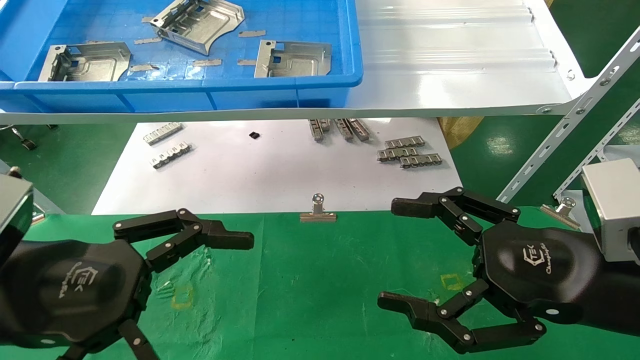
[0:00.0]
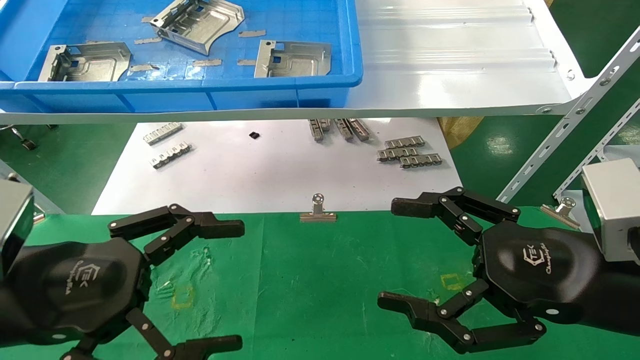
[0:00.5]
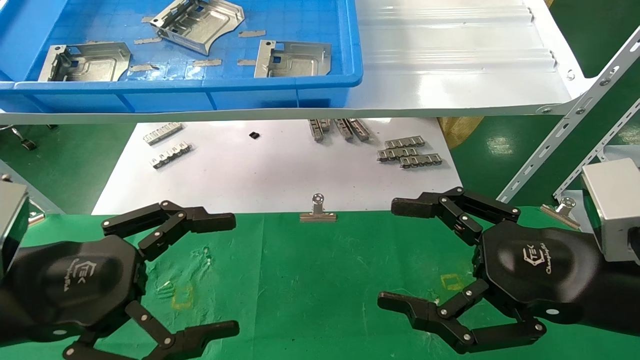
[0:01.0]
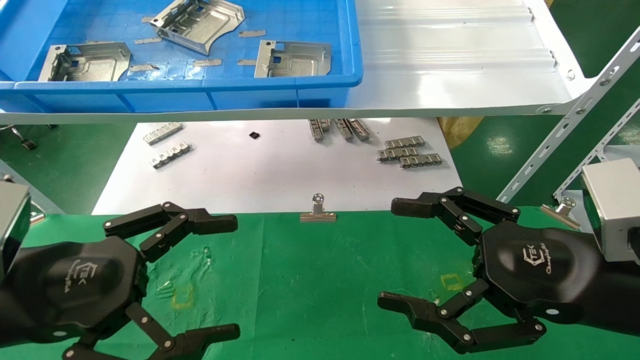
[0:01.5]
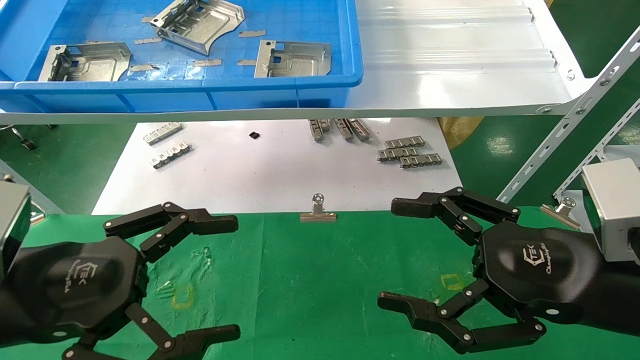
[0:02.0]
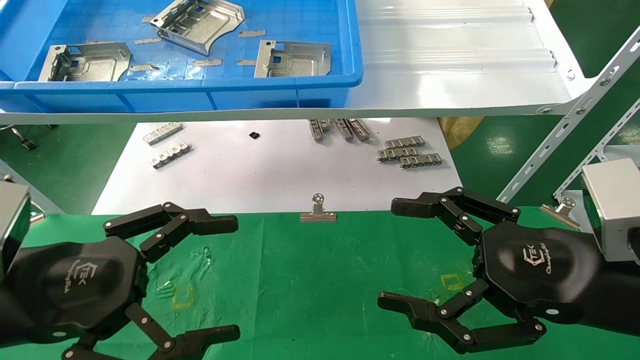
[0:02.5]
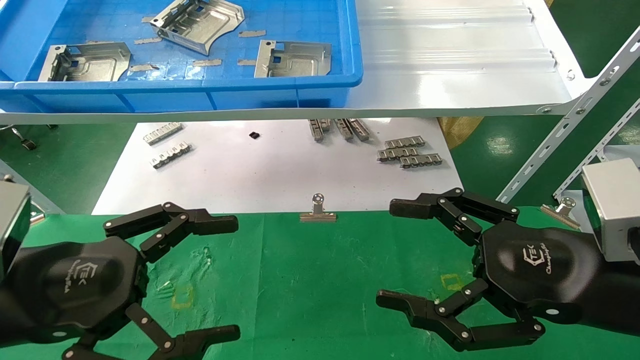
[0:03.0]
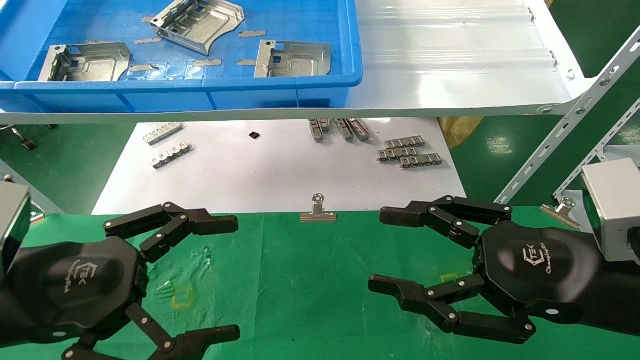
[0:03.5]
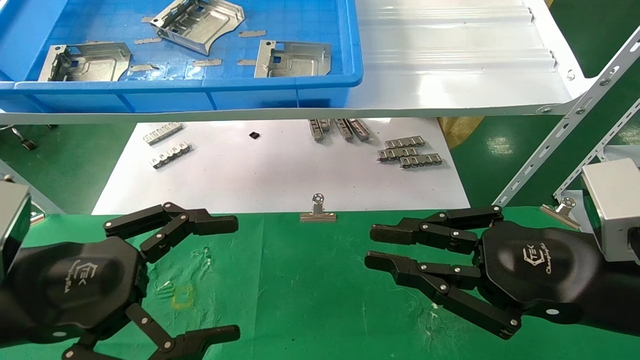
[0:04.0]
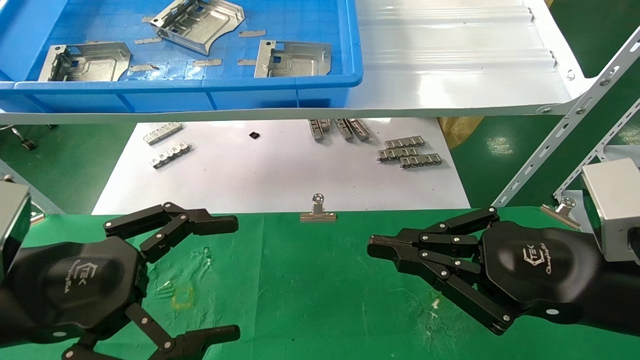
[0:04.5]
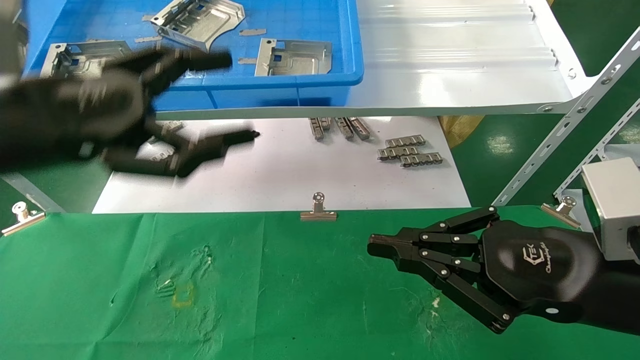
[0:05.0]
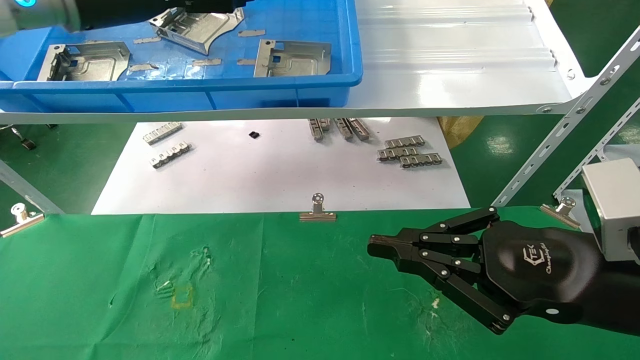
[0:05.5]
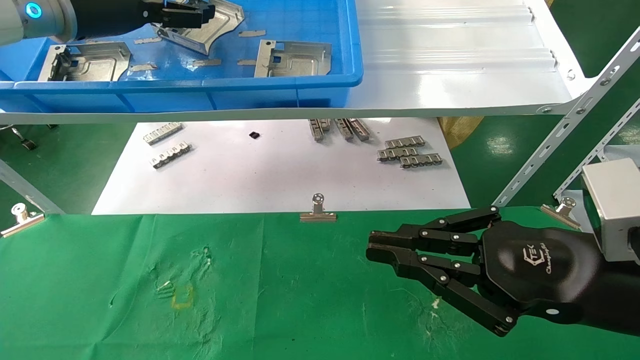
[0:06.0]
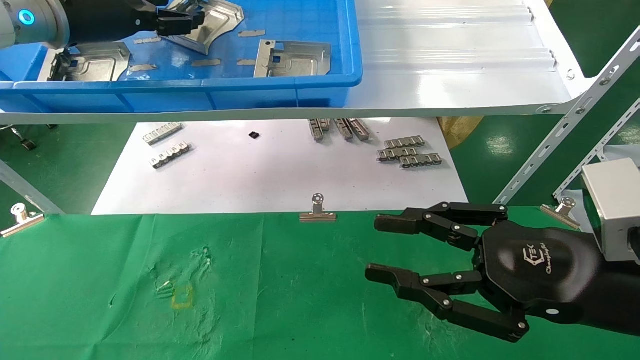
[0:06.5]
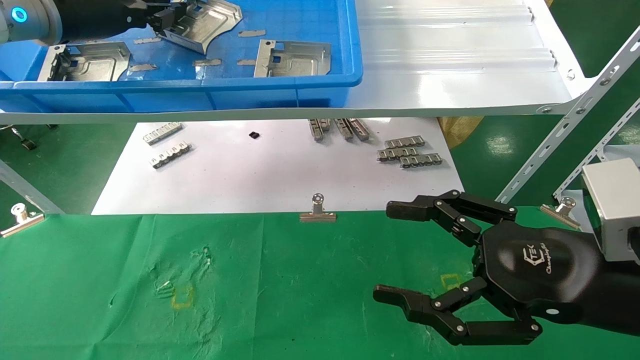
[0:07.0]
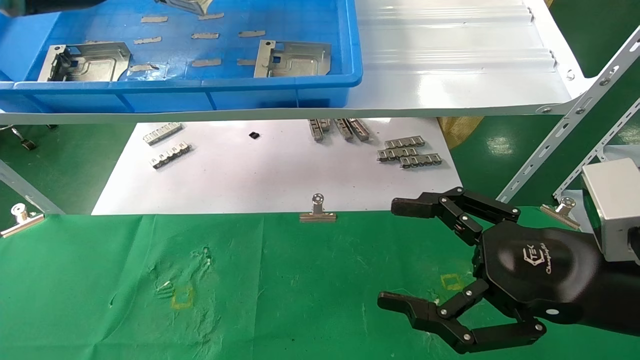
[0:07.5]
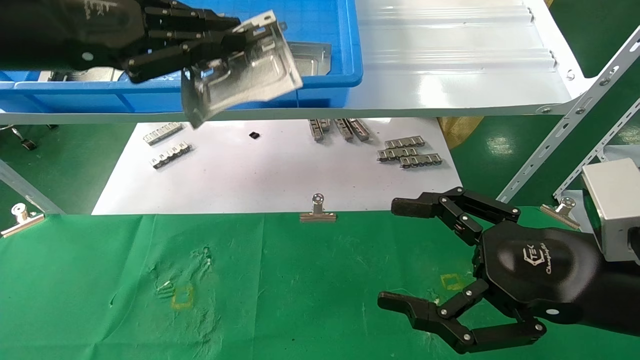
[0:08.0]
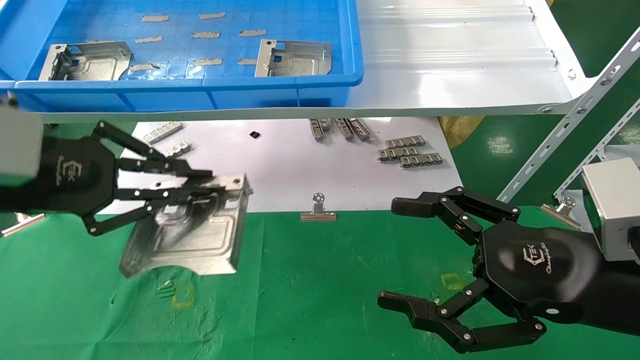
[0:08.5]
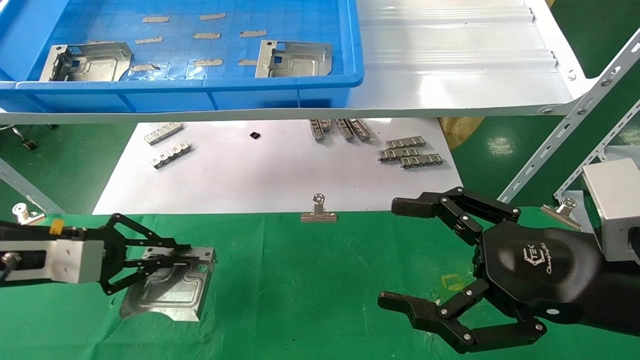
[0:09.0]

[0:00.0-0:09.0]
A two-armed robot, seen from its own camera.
Task of the whole recording: use the mechanical arm to pick up the parts and place them on the table.
Step, 0:05.0 to 0:07.0: Pick up the hard drive bracket from the feeding area.
0:00.0 to 0:02.0: The grippers stay close to where they were, moving slightly.
0:02.0 to 0:04.5: The right gripper closes up.
0:04.5 to 0:07.0: The left gripper moves forward and upward, approximately 30 cm, and closes; the right gripper opens up.
0:07.0 to 0:09.0: The left gripper goes some 25 cm downward.

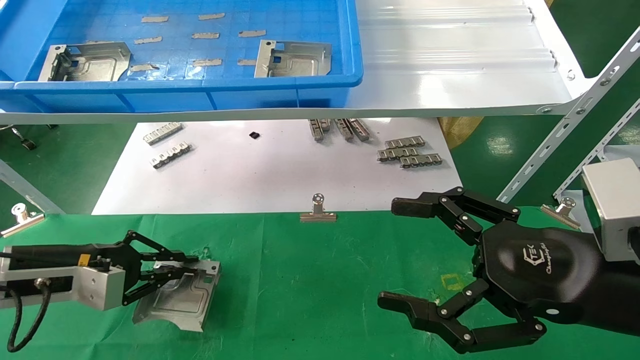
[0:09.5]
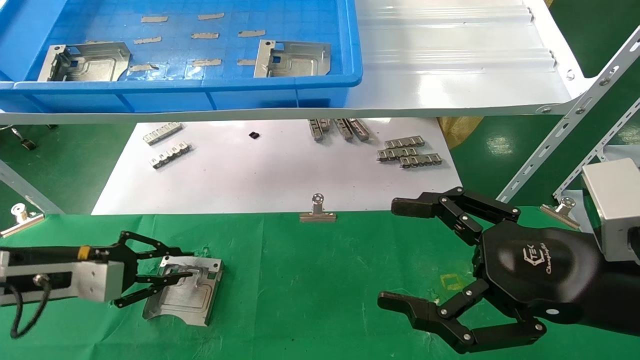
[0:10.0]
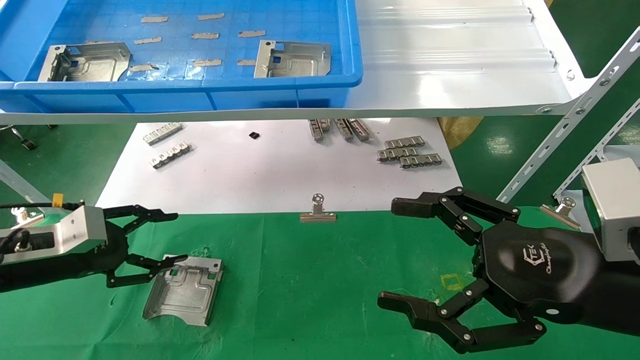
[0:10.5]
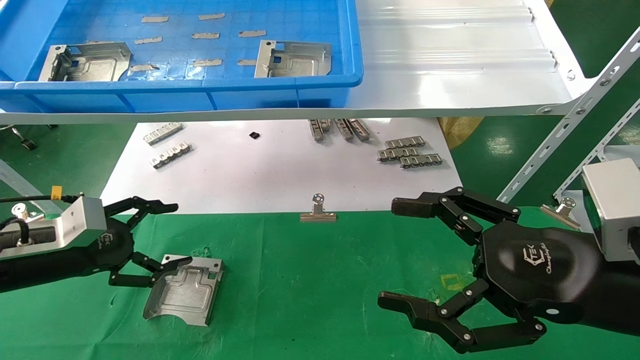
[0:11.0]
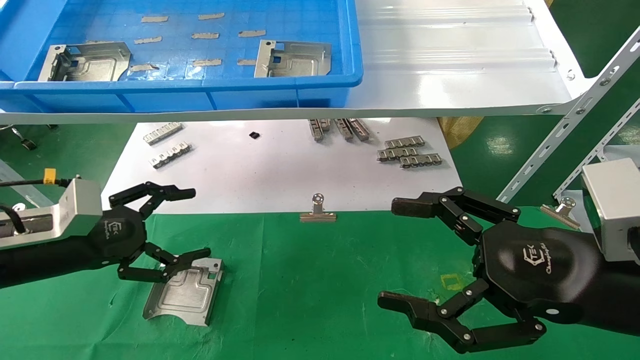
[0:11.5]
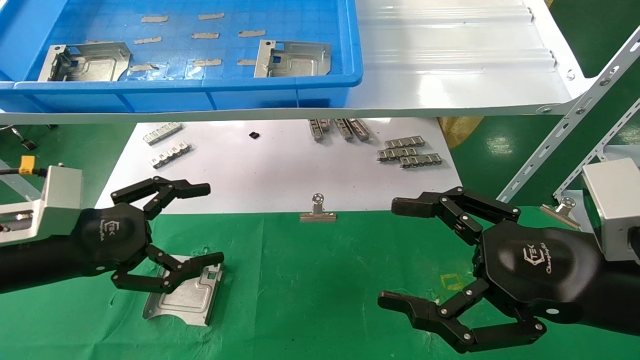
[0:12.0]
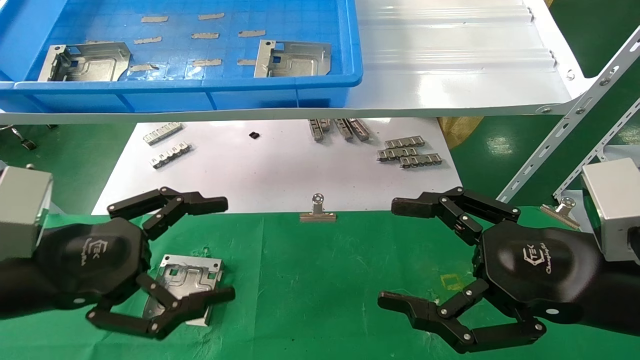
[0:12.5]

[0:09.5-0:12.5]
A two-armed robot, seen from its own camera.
Task of the whole recording: use the mechanical arm to pick up the parts and place them on the table.
0:09.5 to 0:11.0: The left gripper opens its fingers.
0:11.0 to 0:12.5: The left gripper moves backward, to the right and upward, roughly 15 cm.

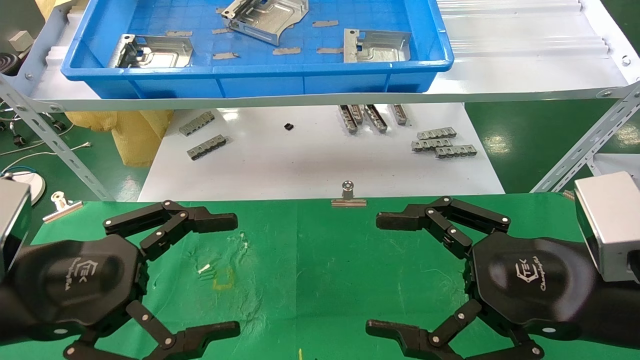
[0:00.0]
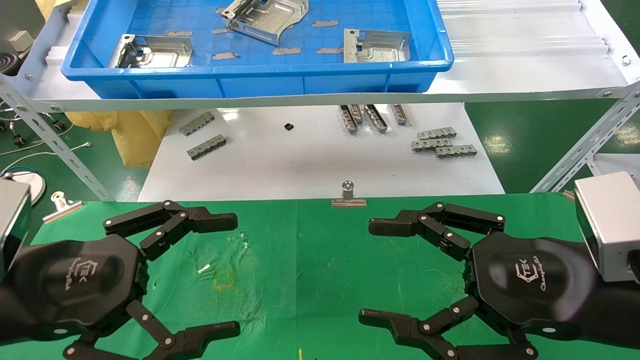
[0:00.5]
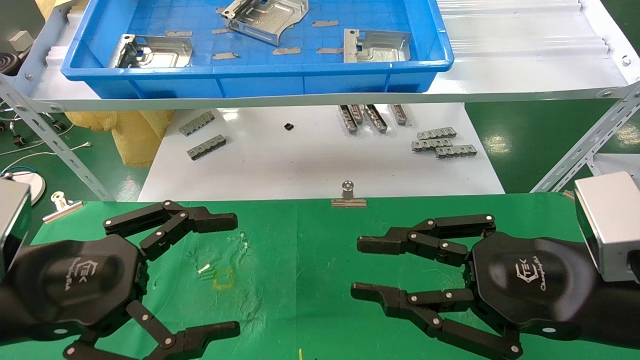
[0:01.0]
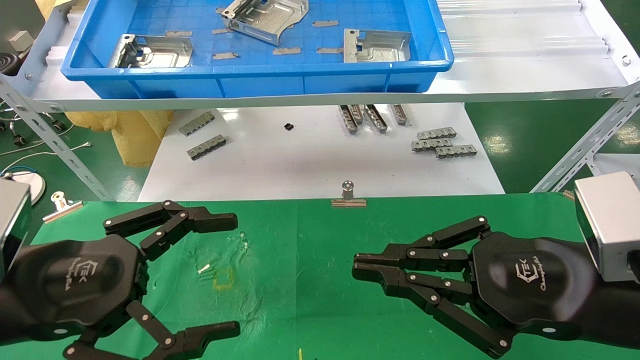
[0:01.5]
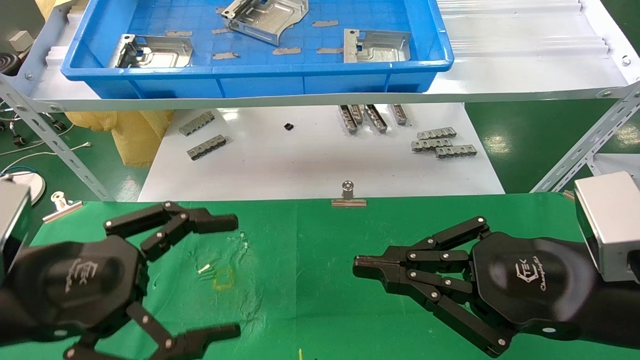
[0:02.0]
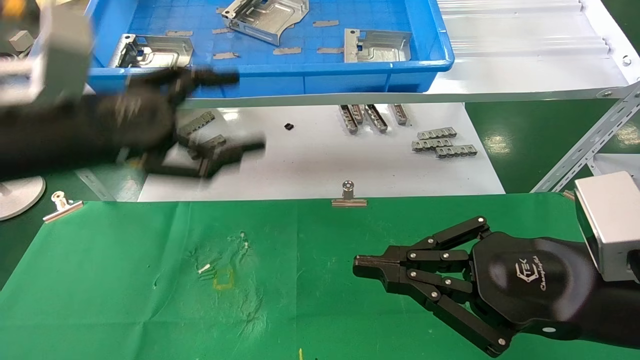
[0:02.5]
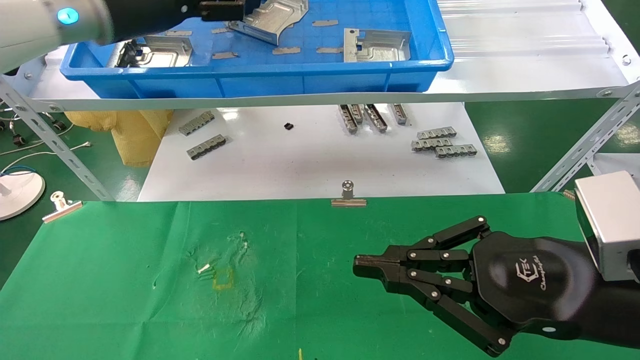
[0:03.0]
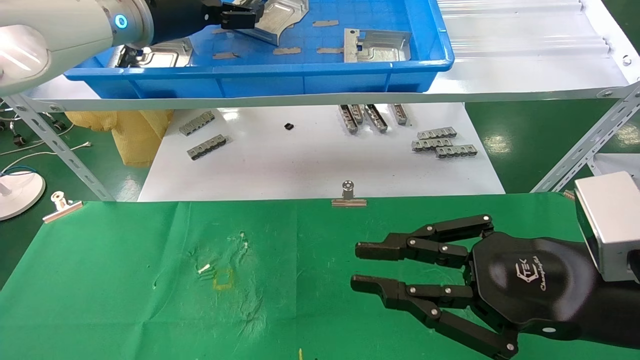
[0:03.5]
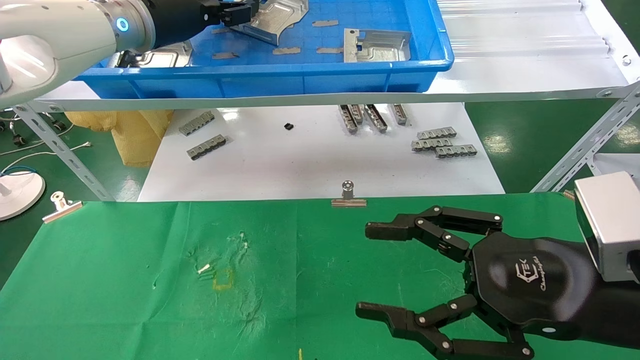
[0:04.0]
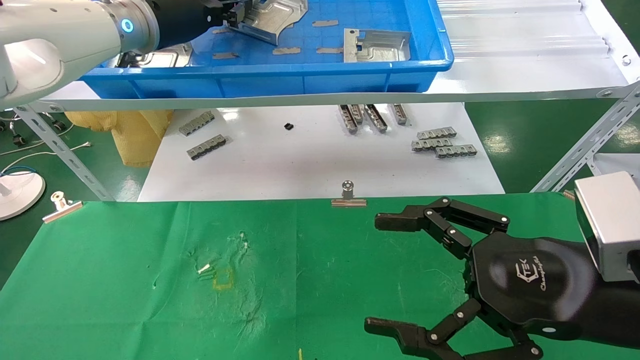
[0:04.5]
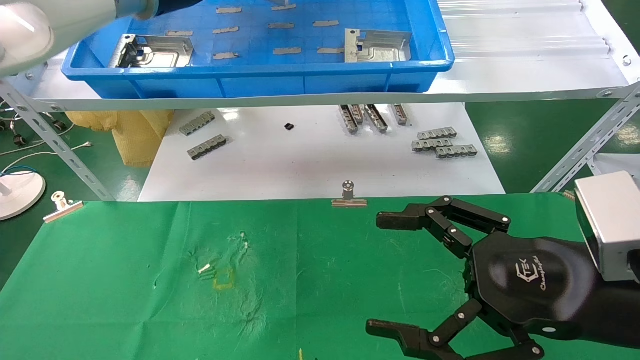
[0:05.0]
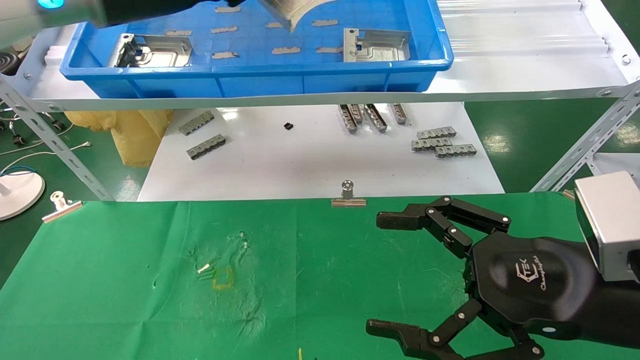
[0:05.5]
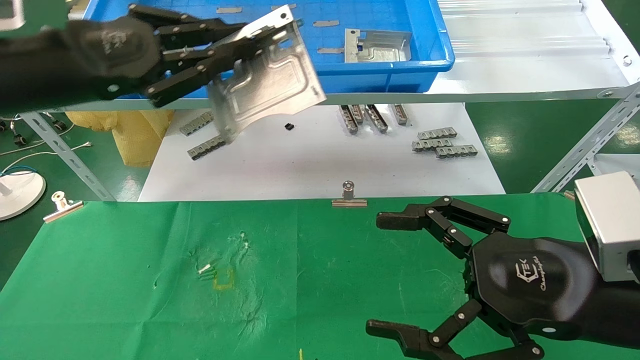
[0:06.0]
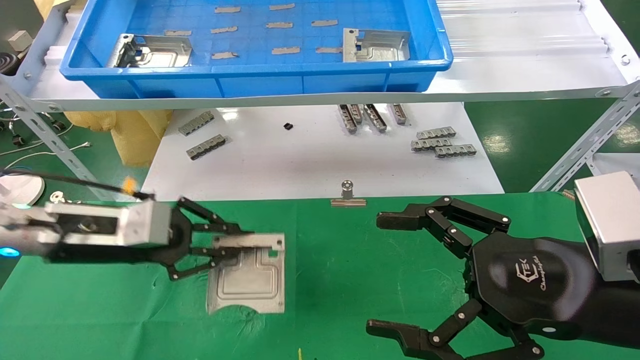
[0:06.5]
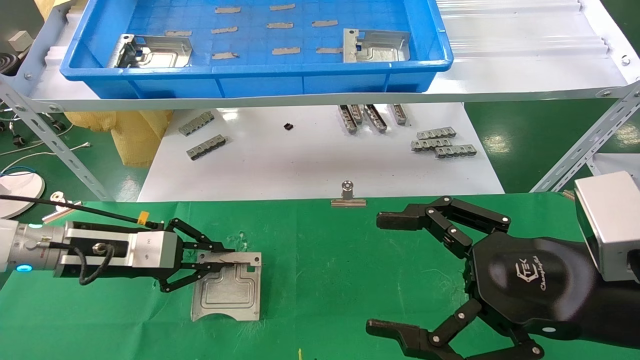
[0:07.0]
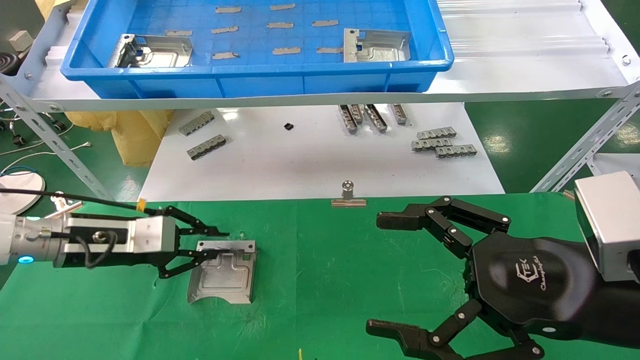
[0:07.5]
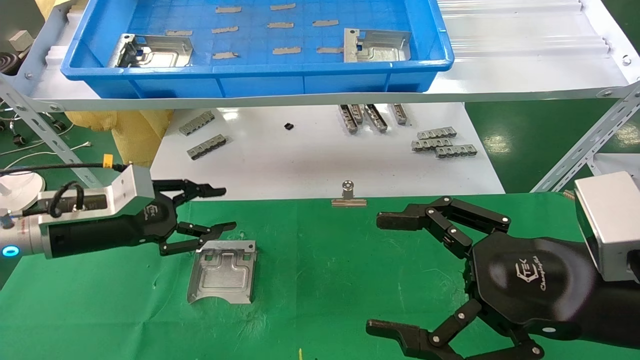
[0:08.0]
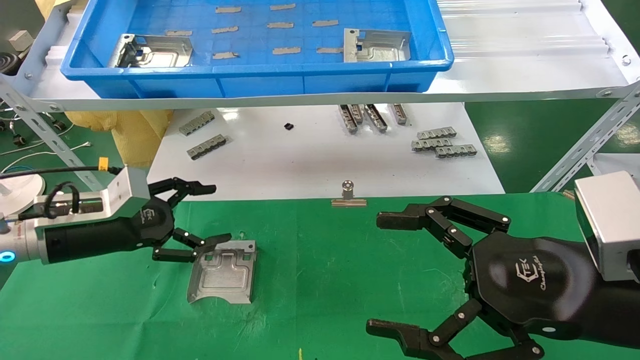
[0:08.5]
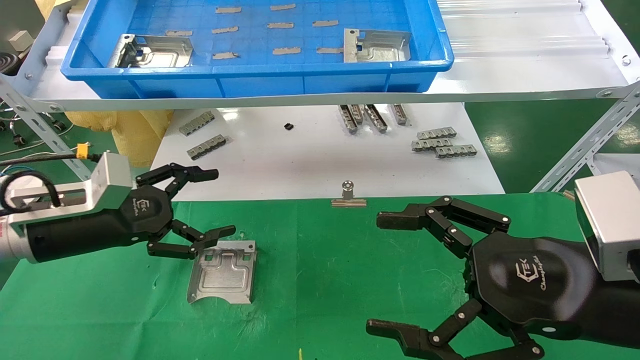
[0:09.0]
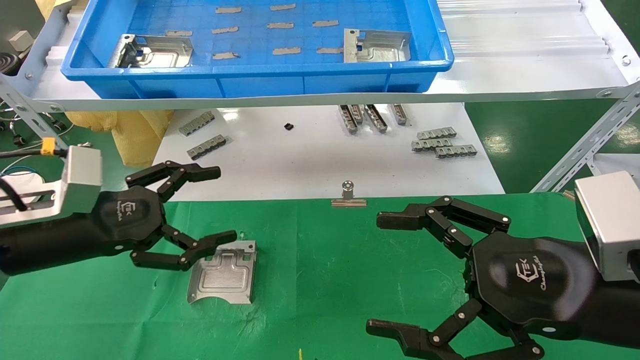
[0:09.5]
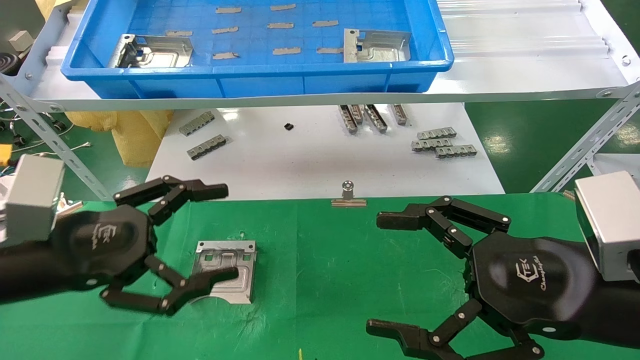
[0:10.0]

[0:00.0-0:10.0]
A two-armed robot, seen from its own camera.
Task of the whole recording: use the mechanical arm to pick up the parts and place them on the table.
Step, 0:02.0 to 0:04.5: Pick up the hard drive bracket from the feeding area.
Step, 0:05.0 to 0:07.5: Place the hard drive bracket into the box.
0:00.0 to 0:02.0: The right gripper closes up.
0:02.0 to 0:04.0: The left gripper travels forward and upward by roughly 35 cm, while the right gripper opens.
0:04.0 to 0:06.0: The left gripper is displaced backward, downward and to the left by some 15 cm, and closes up. The right gripper opens.
0:06.0 to 0:08.0: The left gripper shifts about 15 cm downward.
0:08.0 to 0:10.0: The left gripper travels backward by some 15 cm, and opens up.
